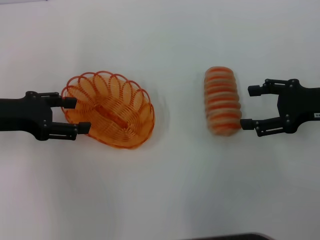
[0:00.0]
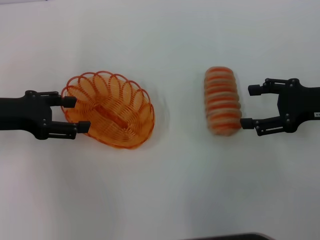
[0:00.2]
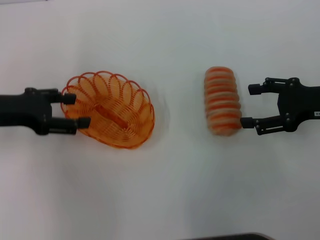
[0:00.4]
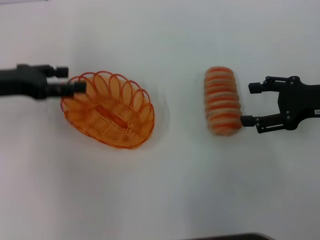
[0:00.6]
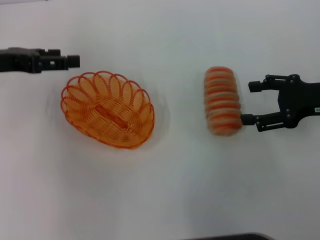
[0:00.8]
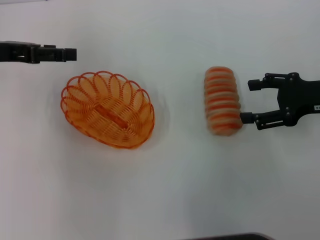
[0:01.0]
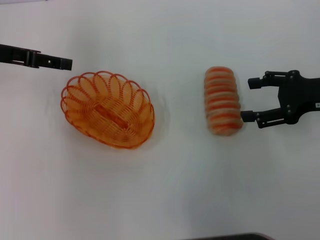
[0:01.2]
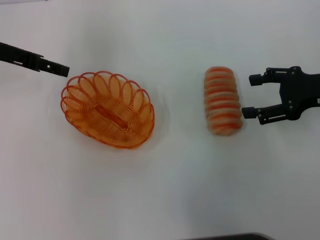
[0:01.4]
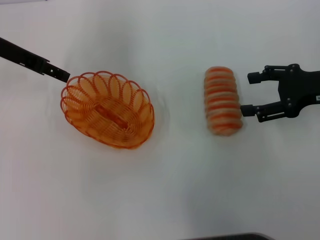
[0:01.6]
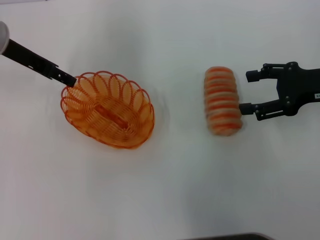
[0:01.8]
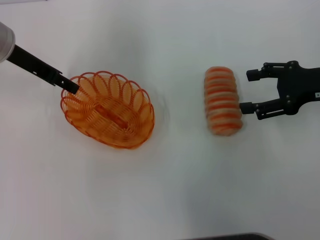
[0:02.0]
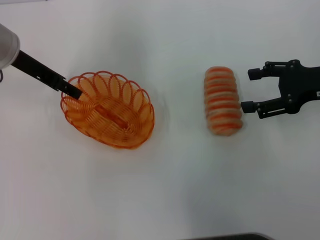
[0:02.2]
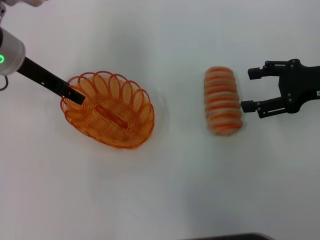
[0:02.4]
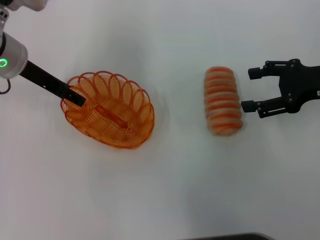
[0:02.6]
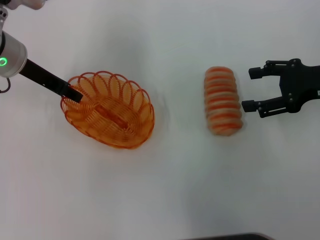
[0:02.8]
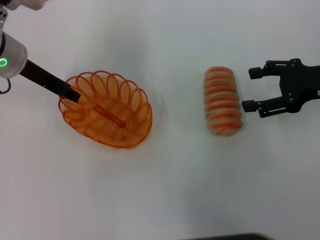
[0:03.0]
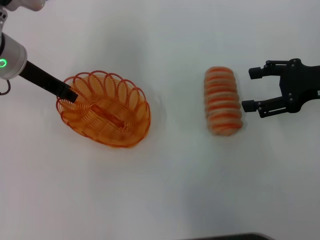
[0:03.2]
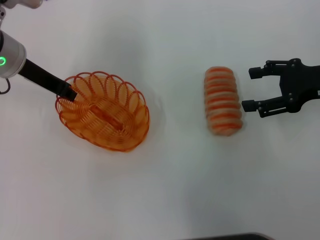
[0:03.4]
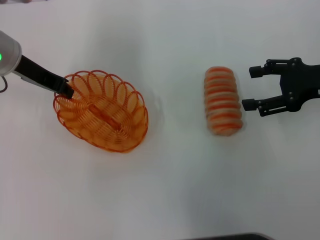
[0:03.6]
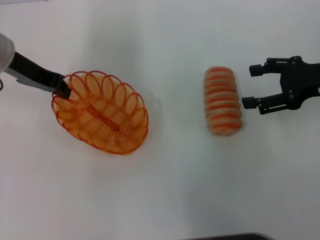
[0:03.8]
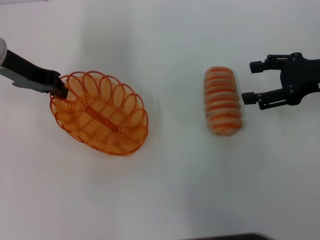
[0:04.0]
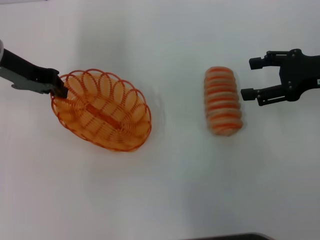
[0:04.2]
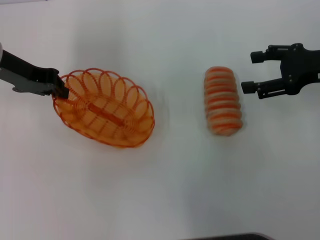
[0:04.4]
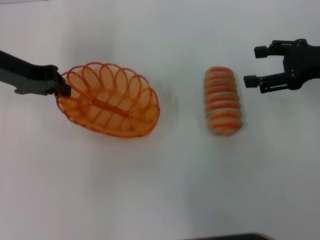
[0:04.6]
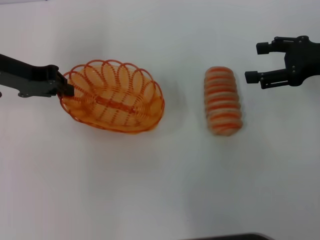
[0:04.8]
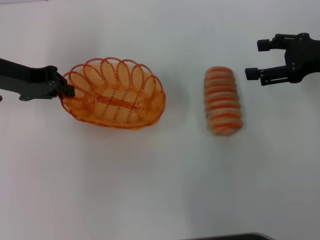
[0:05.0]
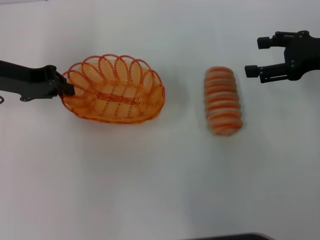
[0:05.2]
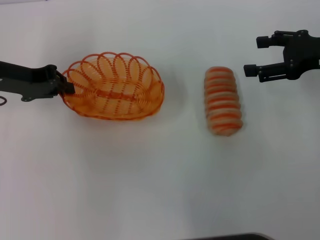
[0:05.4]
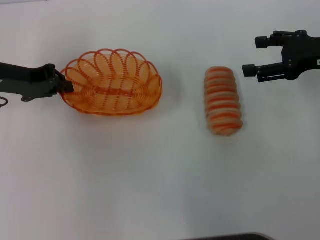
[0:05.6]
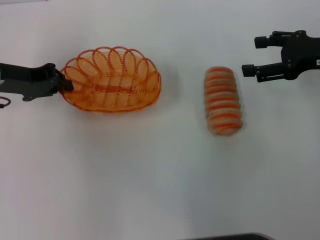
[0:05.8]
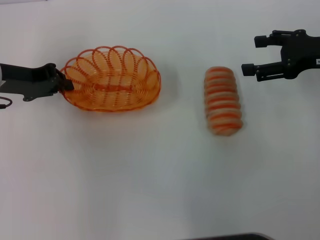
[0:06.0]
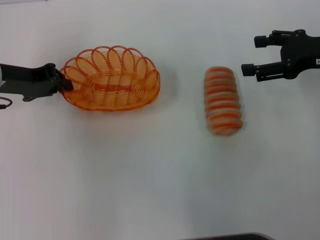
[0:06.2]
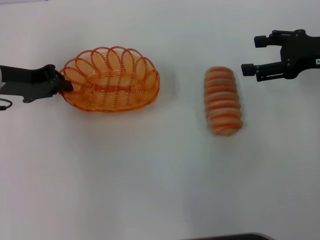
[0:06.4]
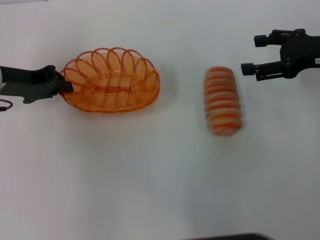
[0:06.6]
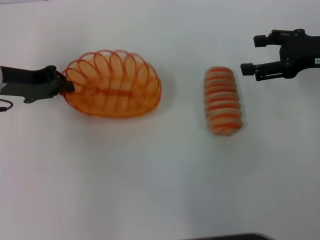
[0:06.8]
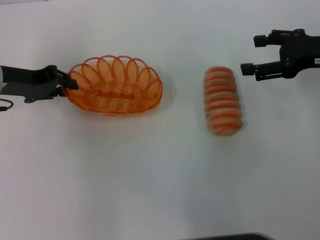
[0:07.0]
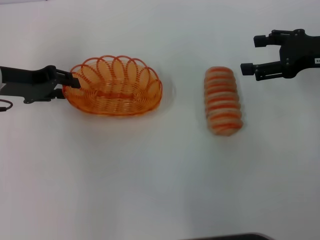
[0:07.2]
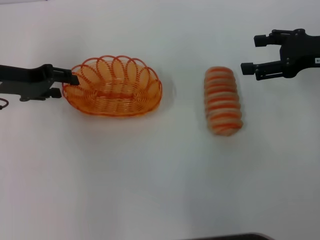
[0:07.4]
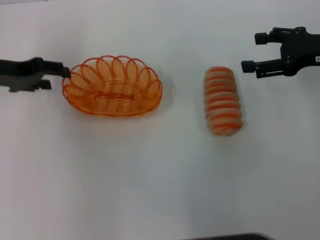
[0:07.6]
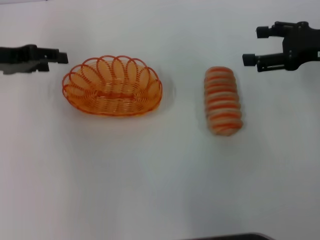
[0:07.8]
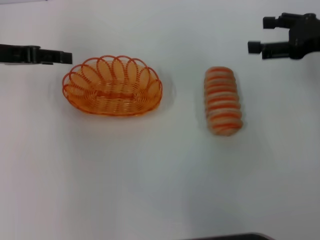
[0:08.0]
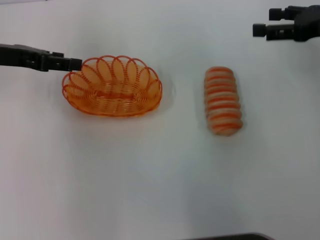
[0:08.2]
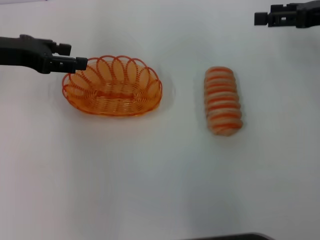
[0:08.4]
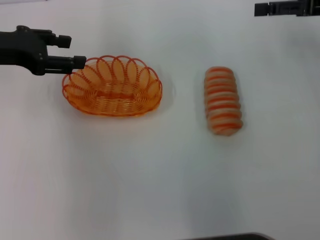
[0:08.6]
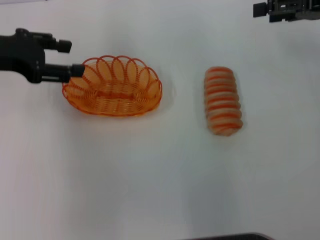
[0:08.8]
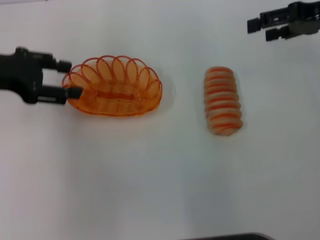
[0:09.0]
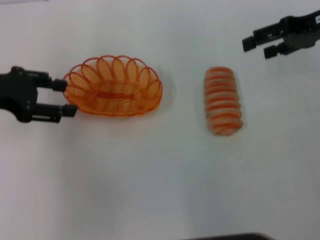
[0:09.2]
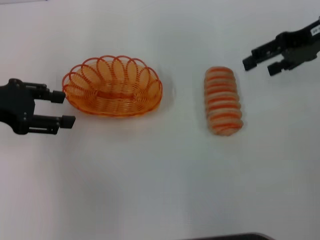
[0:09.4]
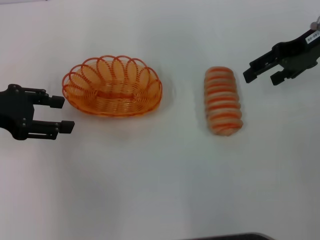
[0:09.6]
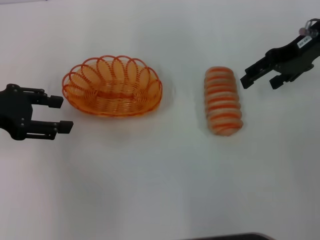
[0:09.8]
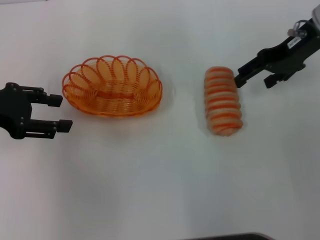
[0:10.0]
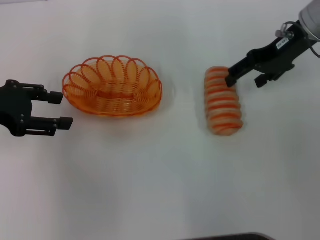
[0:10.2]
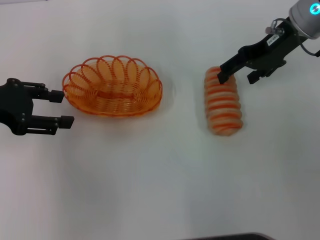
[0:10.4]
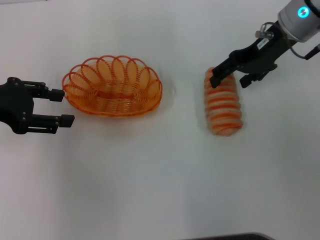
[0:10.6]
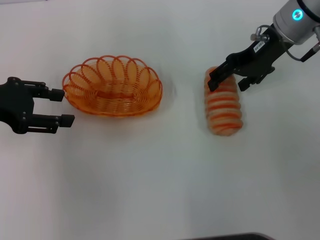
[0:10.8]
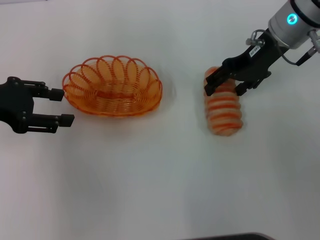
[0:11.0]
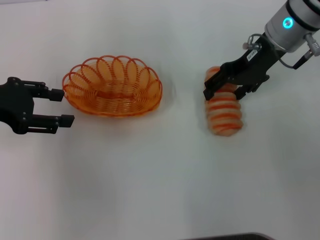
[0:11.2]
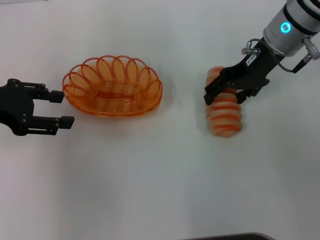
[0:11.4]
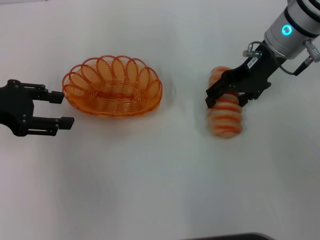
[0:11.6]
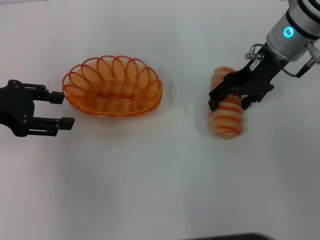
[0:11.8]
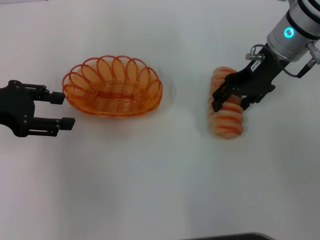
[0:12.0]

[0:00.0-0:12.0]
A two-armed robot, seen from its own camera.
Step, 0.0 to 4.0 s: Pick up the basket with the left gripper.
Step, 4.4 to 7.6 s: Place the basket in the center of view with the left gripper.
0.0 to 1.6 s: The left gripper shifts approximately 10 cm forward and upward.
1.6 to 3.0 s: The grippers make only small movements.
3.0 to 4.4 s: The left gripper closes.
4.4 to 6.0 s: The left gripper moves about 5 cm.
6.0 to 7.6 s: The left gripper opens up.
7.6 to 9.0 s: Both grippers travel together upward, about 5 cm.
9.0 to 10.4 s: The right gripper moves to the left, roughly 10 cm.
10.4 to 12.0 s: There are only small adjustments of the grippers.

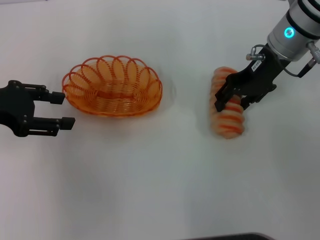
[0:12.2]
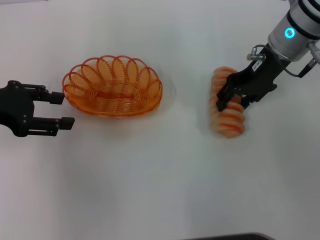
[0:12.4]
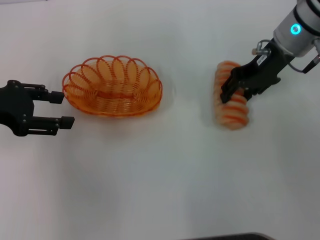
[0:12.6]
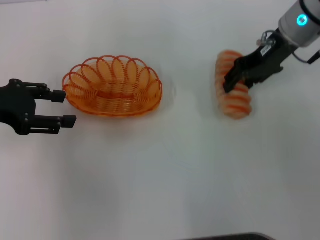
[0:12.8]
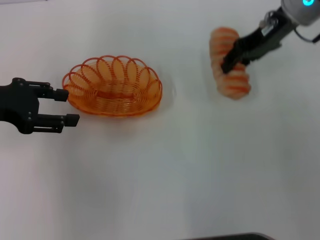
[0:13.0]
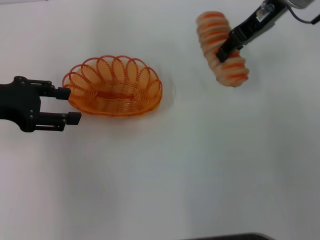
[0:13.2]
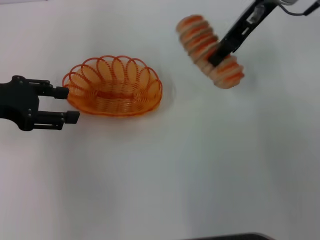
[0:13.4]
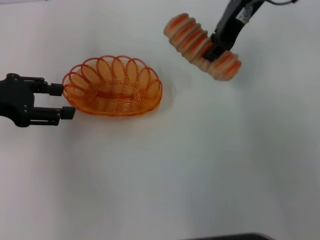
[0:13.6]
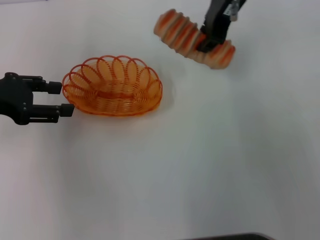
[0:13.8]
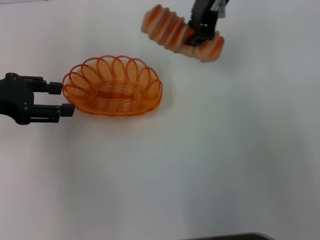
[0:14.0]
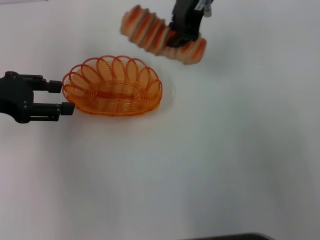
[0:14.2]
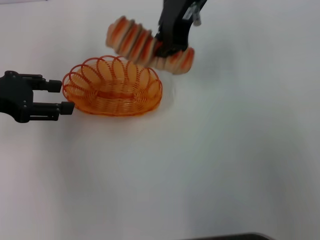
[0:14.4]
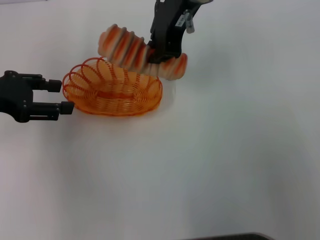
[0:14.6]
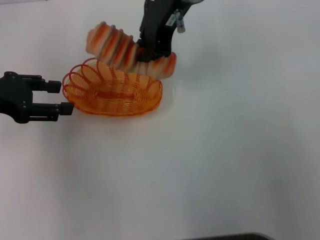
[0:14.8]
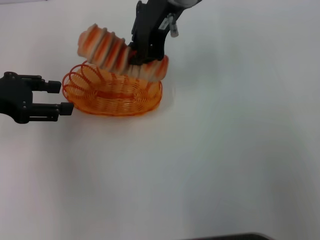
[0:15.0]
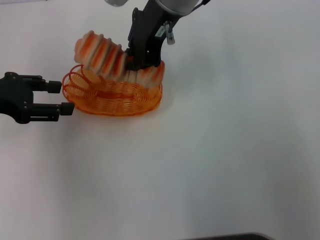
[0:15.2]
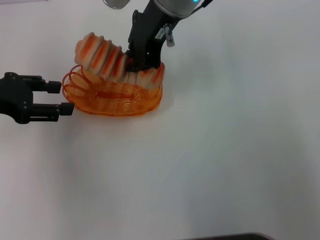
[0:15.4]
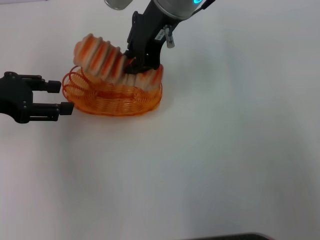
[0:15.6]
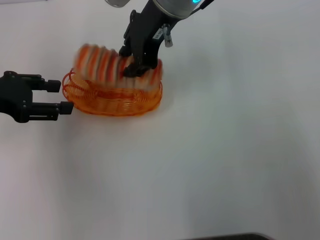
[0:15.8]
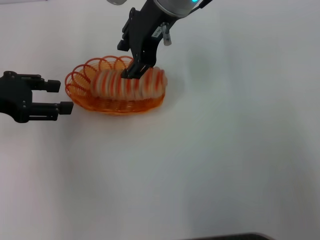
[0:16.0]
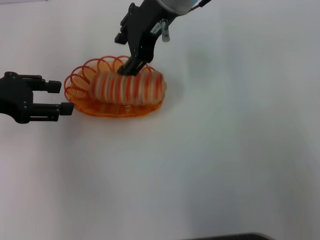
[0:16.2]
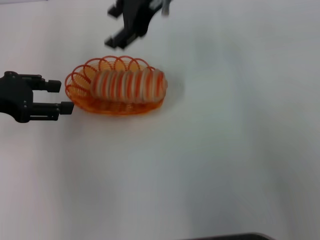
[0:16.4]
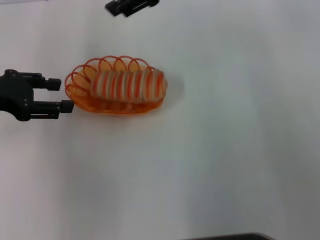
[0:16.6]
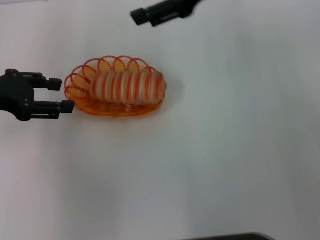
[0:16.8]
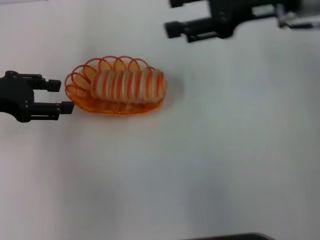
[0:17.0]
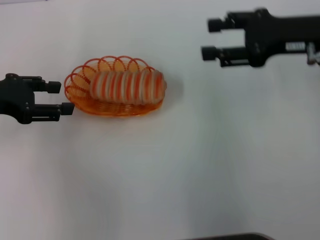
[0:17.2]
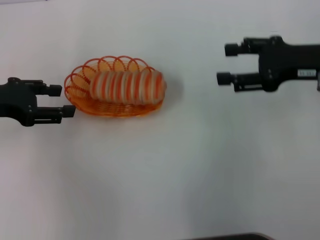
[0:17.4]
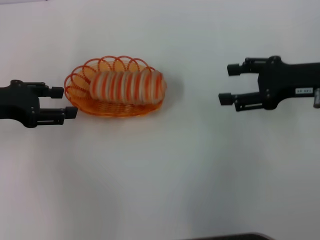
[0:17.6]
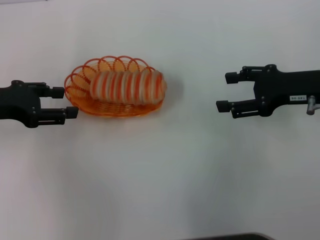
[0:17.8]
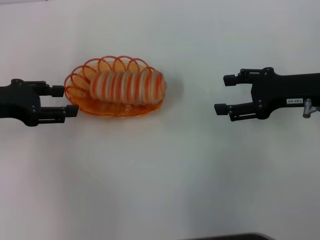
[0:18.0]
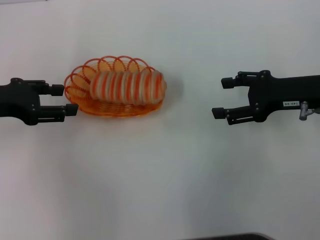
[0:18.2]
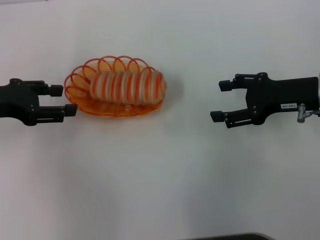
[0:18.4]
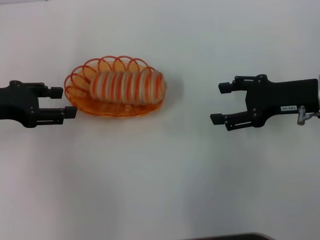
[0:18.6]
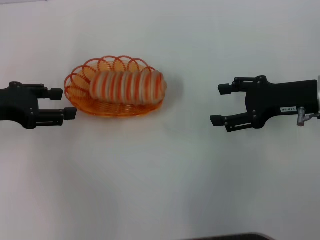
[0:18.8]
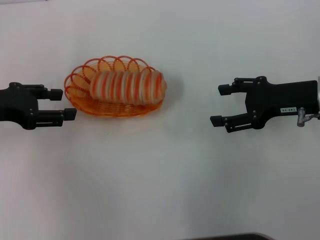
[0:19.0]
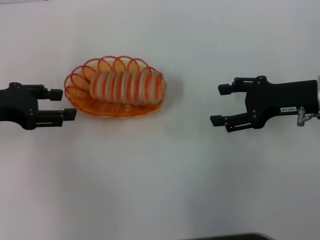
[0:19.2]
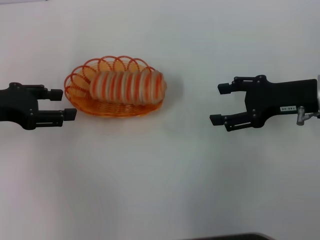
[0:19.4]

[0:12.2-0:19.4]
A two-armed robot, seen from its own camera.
Step, 13.0 to 16.2 s: Place the long bread into the basket with the right gripper.
12.2 to 13.6 s: The right gripper shifts roughly 10 cm upward and to the left, and closes up.
13.6 to 15.0 s: The right gripper is displaced to the left by some 10 cm.
15.0 to 16.6 s: The right gripper heads to the right, covering approximately 5 cm, and opens its fingers.
16.6 to 18.0 s: The right gripper is displaced to the right, downward and backward by about 25 cm.
18.0 to 19.4 s: Both grippers stay about where they are.

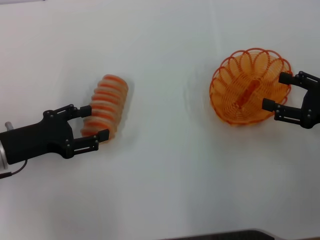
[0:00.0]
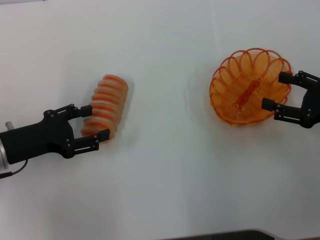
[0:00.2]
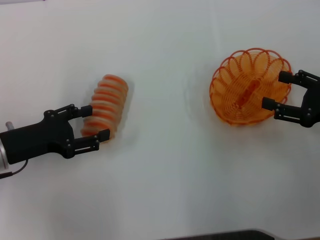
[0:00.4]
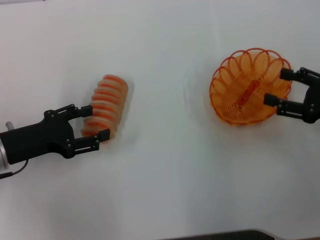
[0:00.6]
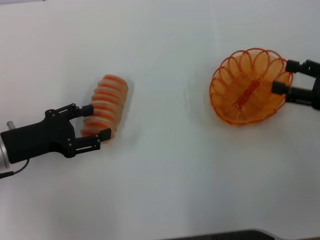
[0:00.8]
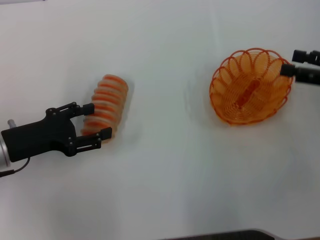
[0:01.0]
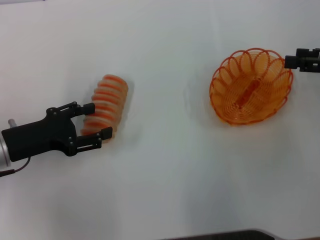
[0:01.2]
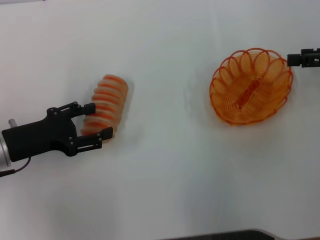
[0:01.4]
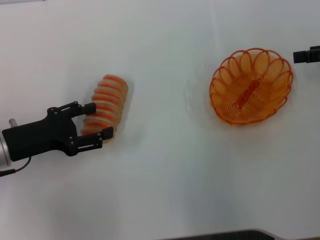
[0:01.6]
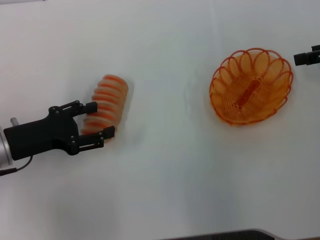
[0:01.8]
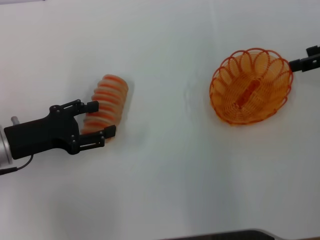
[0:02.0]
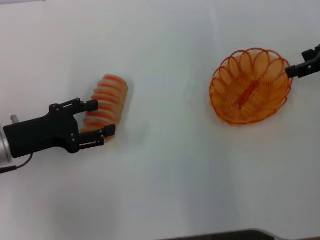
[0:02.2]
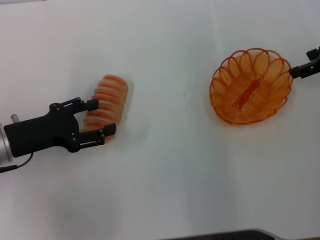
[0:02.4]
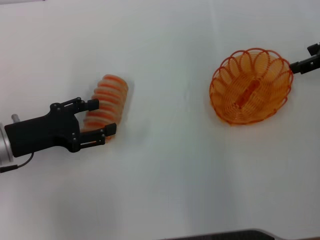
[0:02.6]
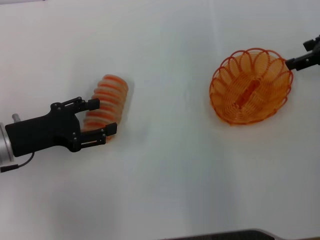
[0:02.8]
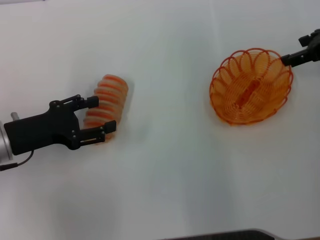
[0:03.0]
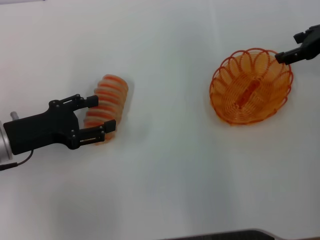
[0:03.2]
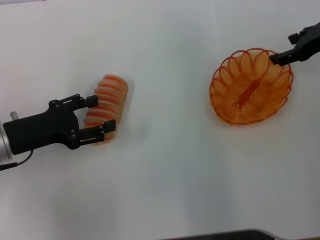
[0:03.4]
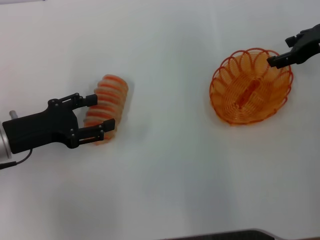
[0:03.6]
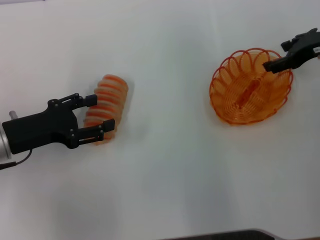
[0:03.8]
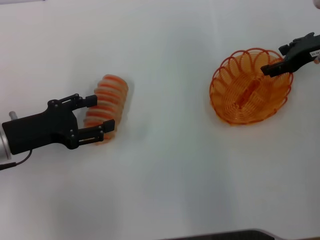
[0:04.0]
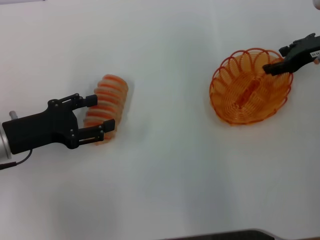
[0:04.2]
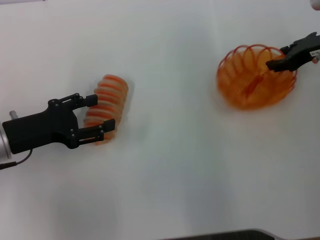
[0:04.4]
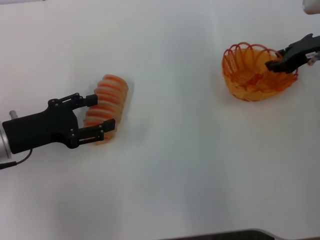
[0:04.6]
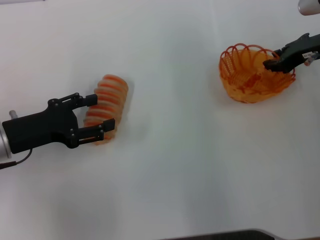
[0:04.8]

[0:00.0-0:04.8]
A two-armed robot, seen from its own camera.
0.0 to 1.6 s: The right gripper moves forward and upward, about 15 cm.
1.6 to 3.2 s: The right gripper shifts about 5 cm forward.
3.2 to 4.8 s: The right gripper ends up about 5 cm from where it was, and closes its fingers.
